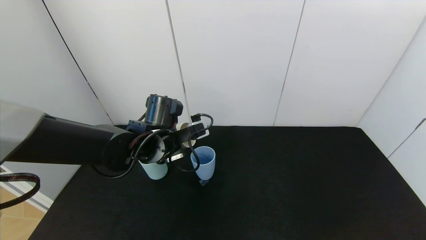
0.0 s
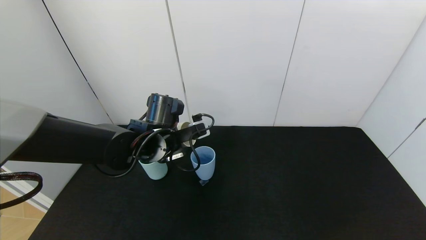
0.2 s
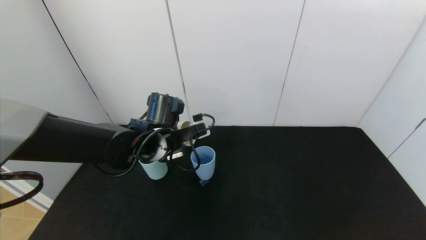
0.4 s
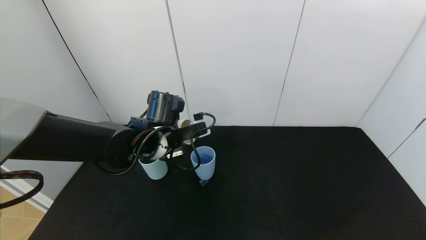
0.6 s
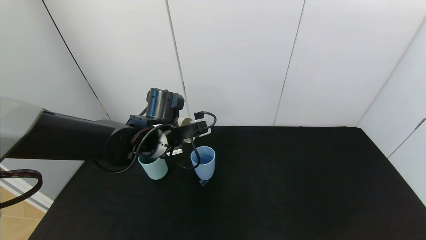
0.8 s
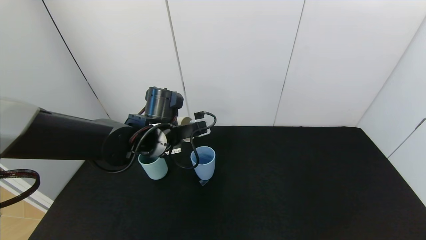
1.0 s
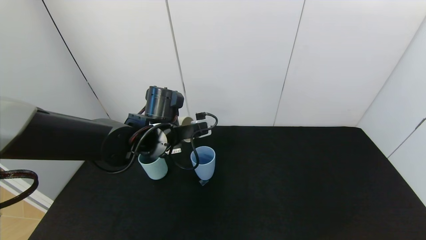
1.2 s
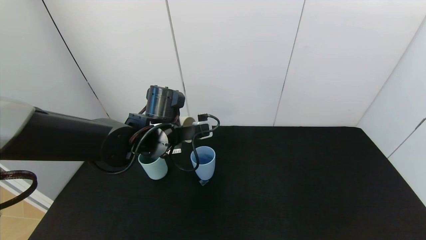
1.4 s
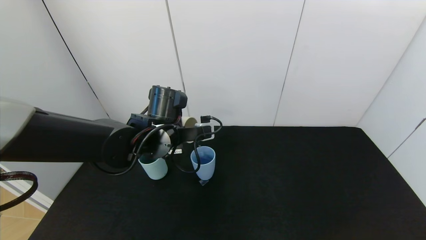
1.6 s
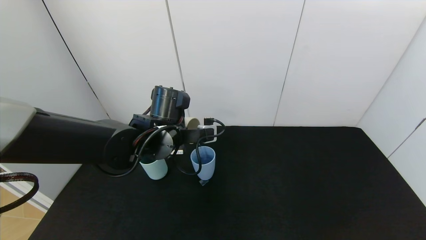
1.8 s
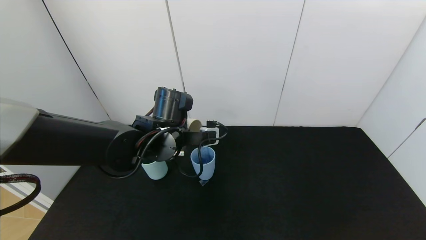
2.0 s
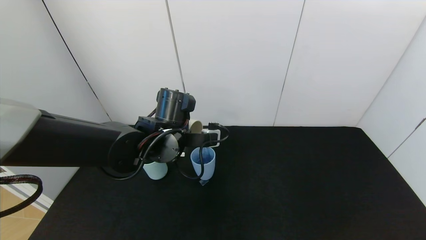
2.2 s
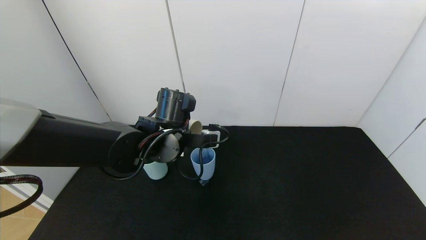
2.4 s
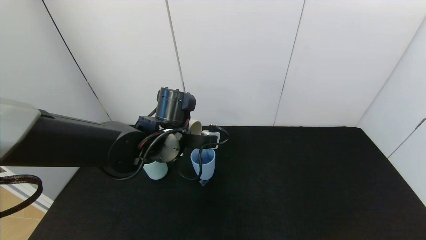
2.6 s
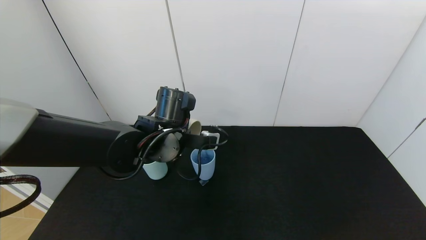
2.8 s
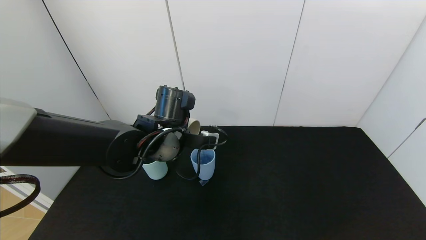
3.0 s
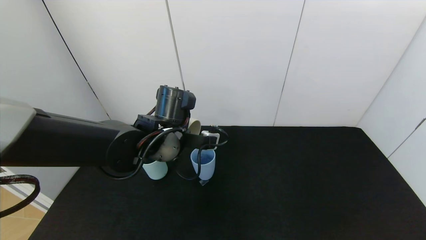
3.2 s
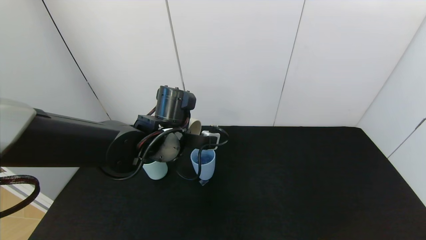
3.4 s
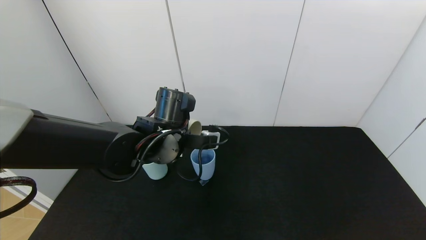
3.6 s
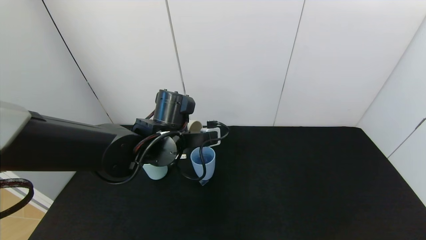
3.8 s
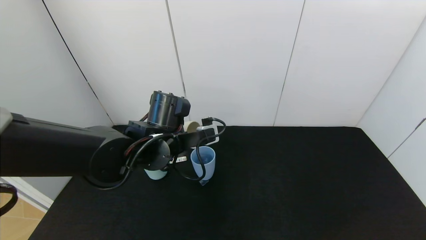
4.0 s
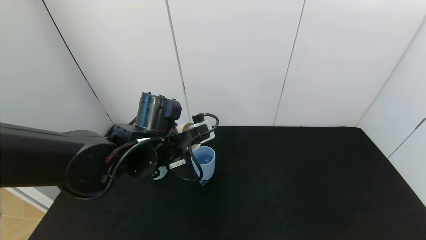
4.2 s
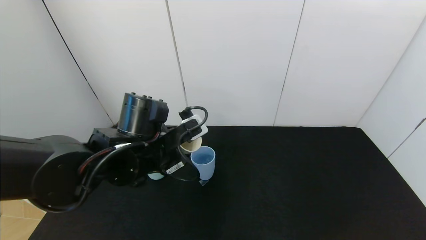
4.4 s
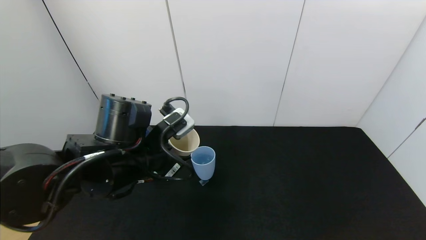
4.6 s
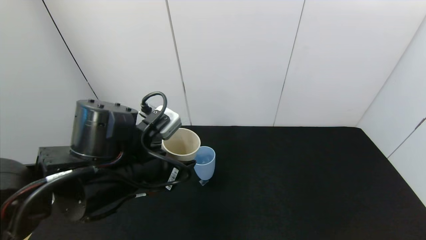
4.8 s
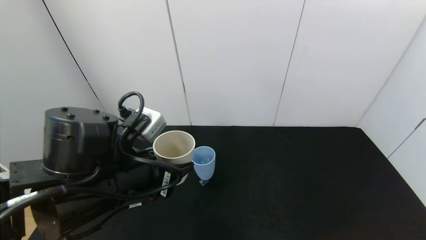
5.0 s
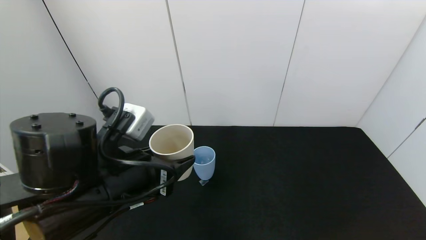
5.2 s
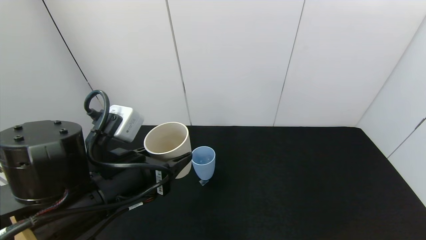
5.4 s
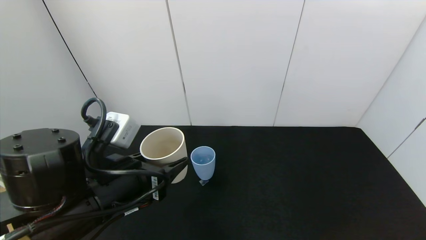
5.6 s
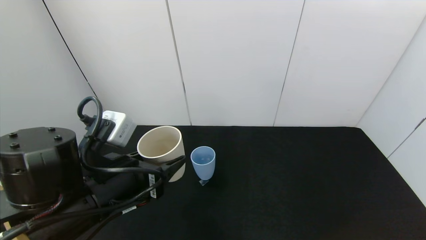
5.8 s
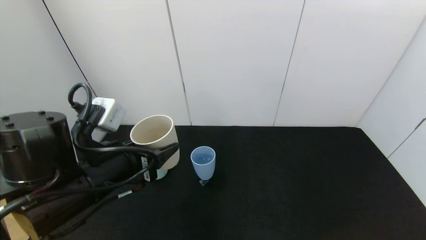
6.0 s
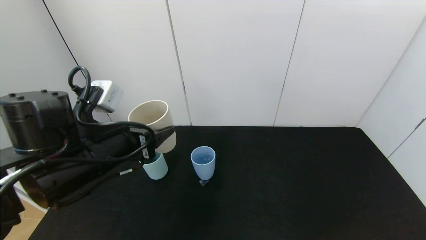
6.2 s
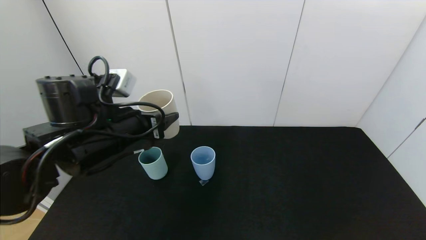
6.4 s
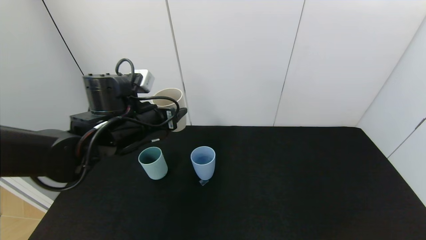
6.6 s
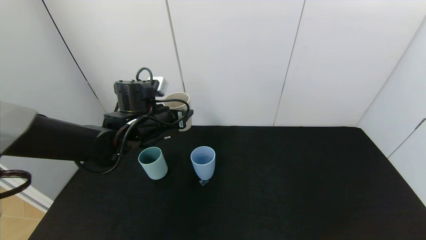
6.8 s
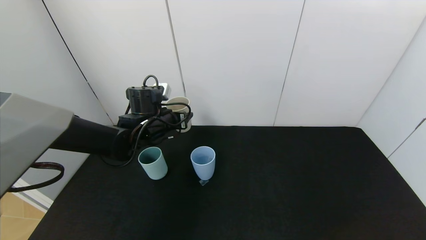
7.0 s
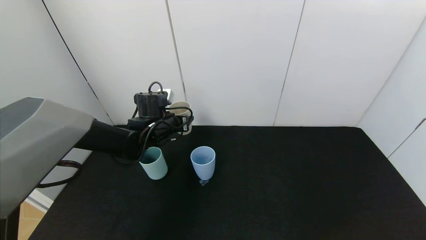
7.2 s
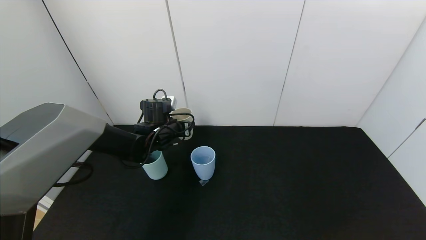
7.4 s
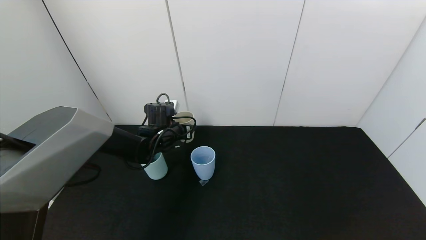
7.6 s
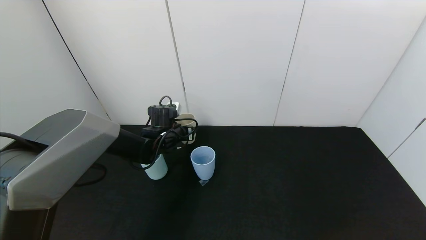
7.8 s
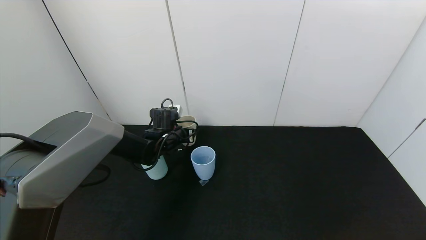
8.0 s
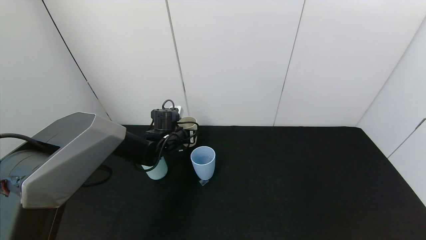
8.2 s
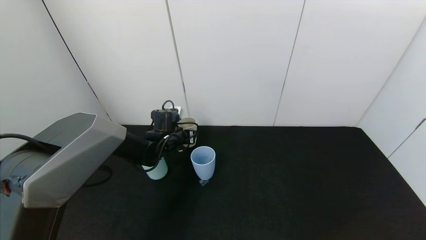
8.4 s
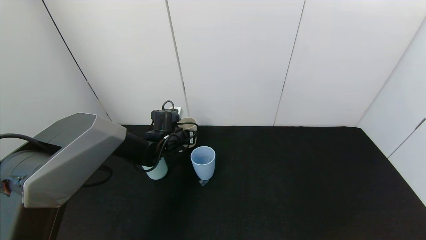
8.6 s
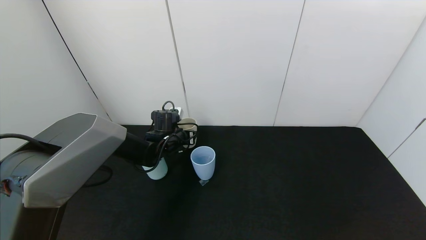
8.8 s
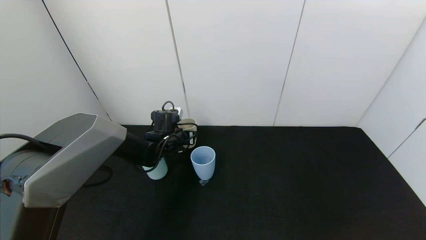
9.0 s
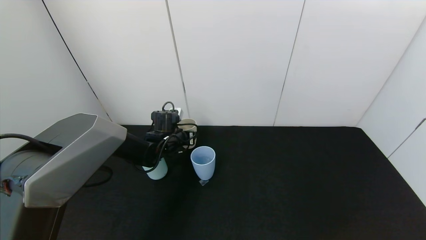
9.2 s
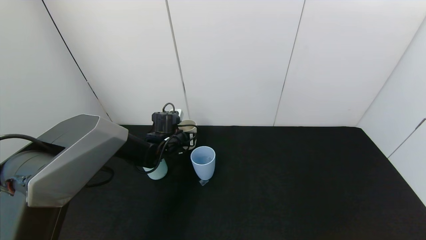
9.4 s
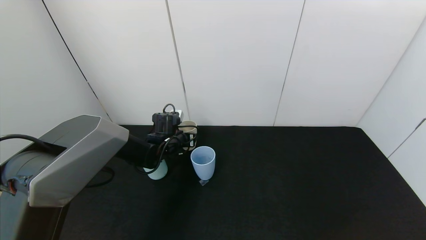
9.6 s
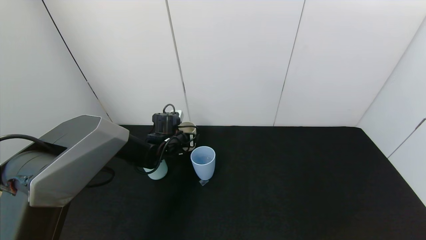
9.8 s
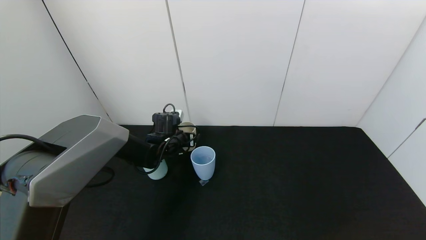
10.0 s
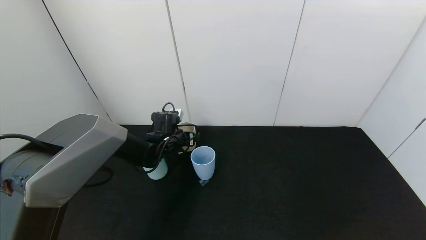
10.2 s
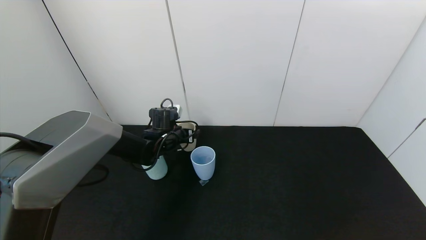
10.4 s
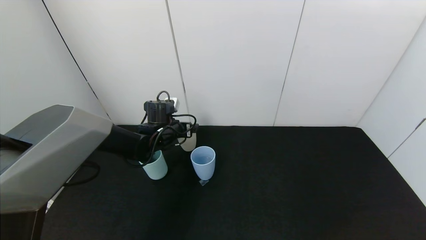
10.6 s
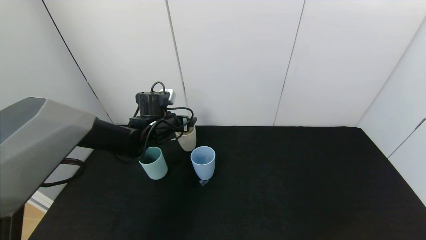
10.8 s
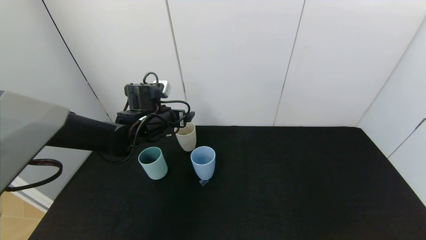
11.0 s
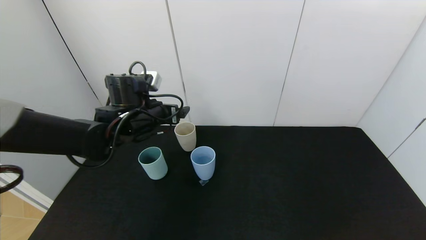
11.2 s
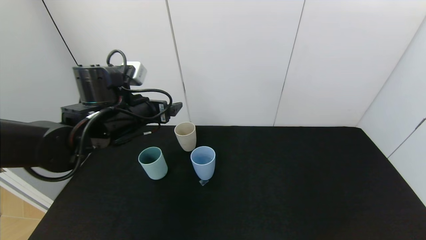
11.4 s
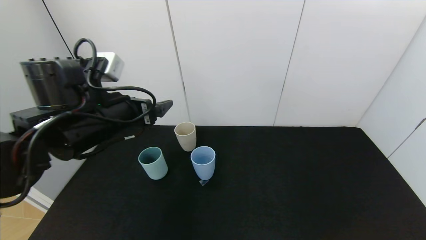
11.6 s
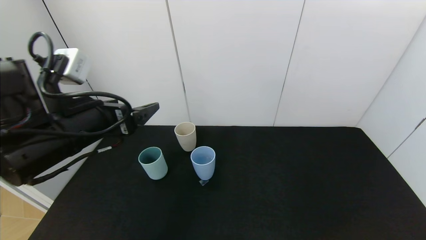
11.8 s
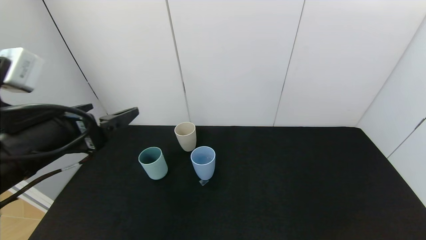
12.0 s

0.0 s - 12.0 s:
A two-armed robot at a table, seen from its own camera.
Task of the whole recording: use the gripper to pour the water into the other two cups on black table.
Step, 0.0 s - 4.2 s: Pour water from white cup to blue cup with the left gripper.
Step, 4.4 s - 11.4 s: Place the white cup with the left gripper.
0.0 s - 1.6 s: The grippers move only a little.
1.6 s - 3.0 s: The grippers move only a little.
3.0 s - 4.4 s: The left gripper is displaced backward by approximately 5 cm.
4.4 s - 6.0 s: The left gripper heads backward, covering roughly 5 cm.
6.0 s - 7.6 s: The left gripper heads forward, covering about 25 cm.
7.6 s - 9.0 s: The grippers move only a little.
9.0 s - 10.4 s: The left gripper opens its fingers.
10.4 s - 12.0 s: The left gripper shifts some 30 cm backward and upward.

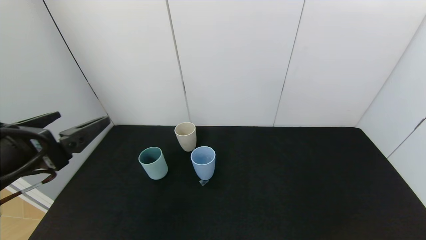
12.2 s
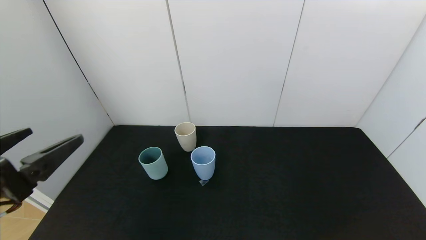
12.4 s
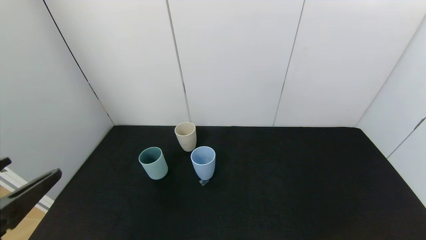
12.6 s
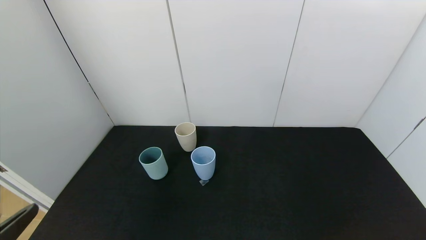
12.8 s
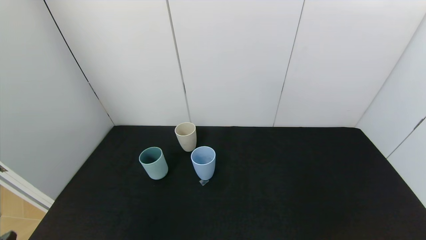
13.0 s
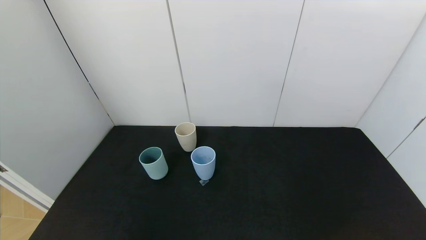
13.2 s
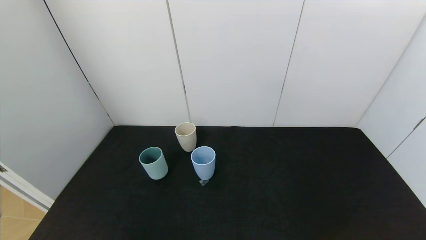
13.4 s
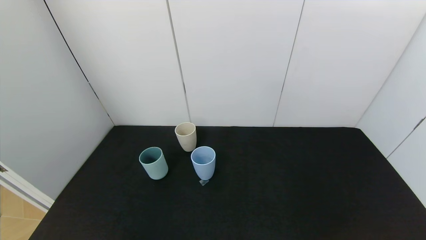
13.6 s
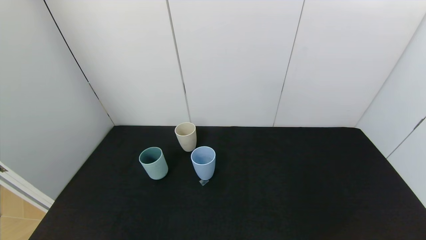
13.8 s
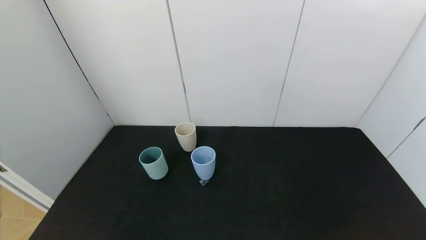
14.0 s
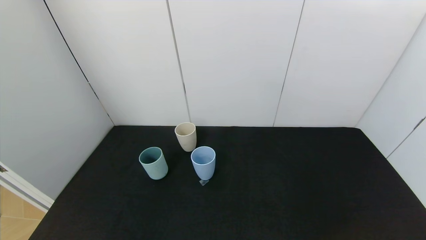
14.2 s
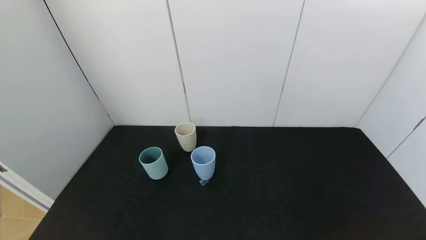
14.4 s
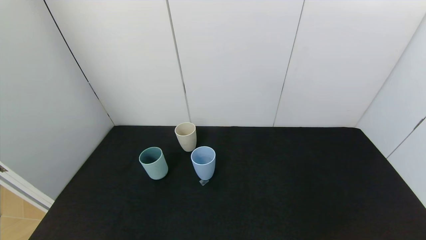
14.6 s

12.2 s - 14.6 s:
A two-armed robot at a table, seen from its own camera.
Task of the whole recording: use the gripper to pour the water into the other two cups on black table.
12.2 s - 13.4 s: The left gripper shifts approximately 20 cm backward and downward.
